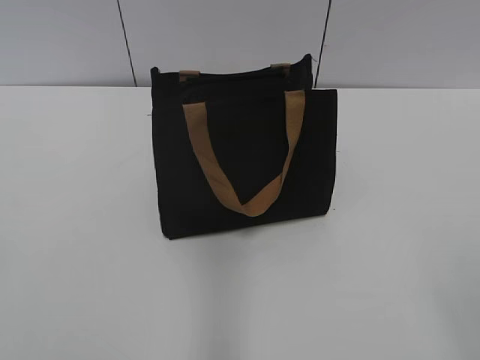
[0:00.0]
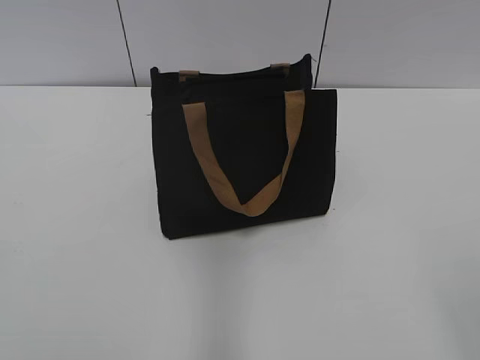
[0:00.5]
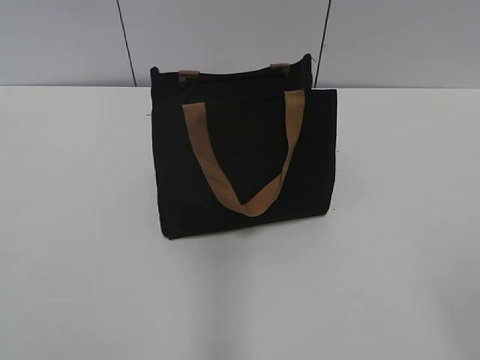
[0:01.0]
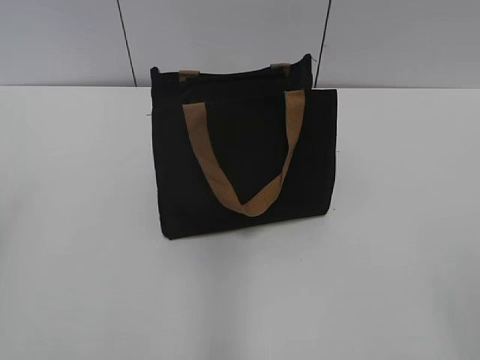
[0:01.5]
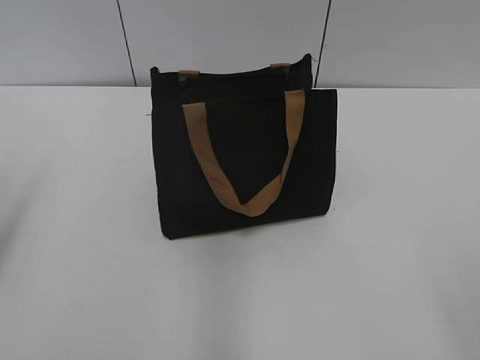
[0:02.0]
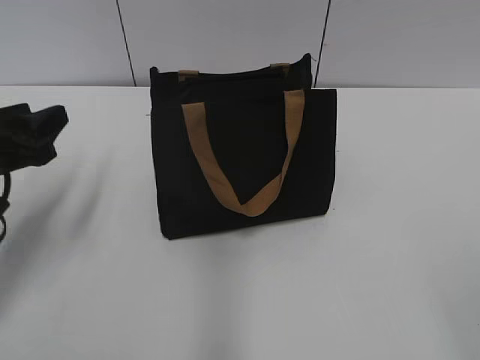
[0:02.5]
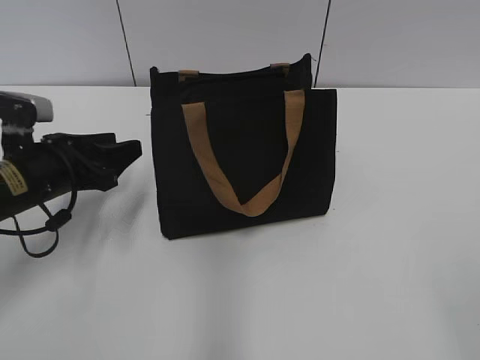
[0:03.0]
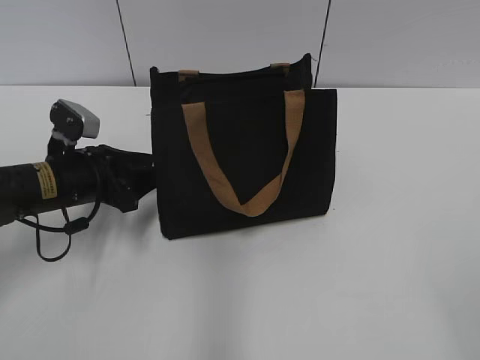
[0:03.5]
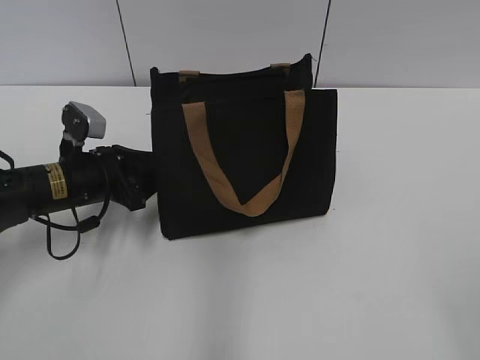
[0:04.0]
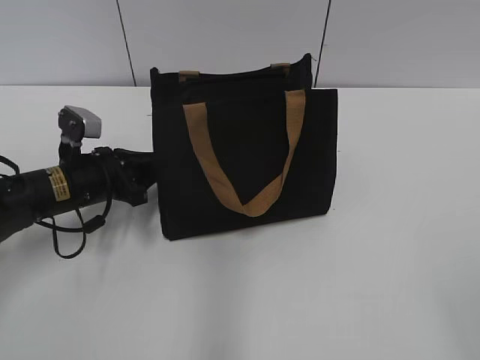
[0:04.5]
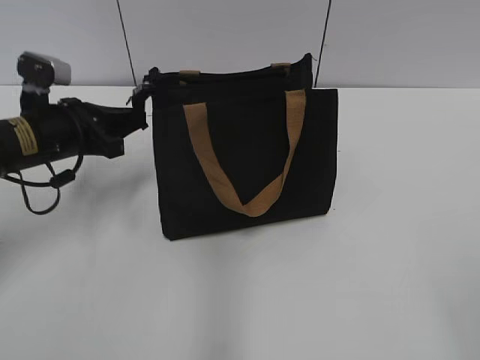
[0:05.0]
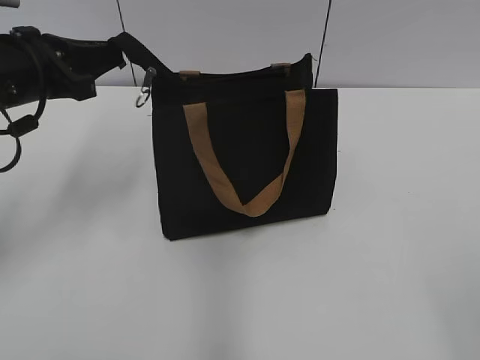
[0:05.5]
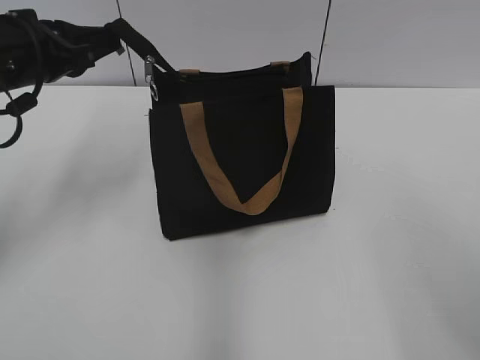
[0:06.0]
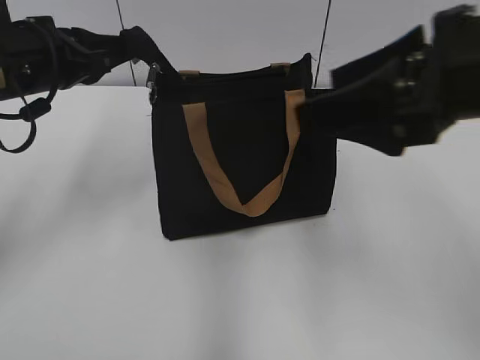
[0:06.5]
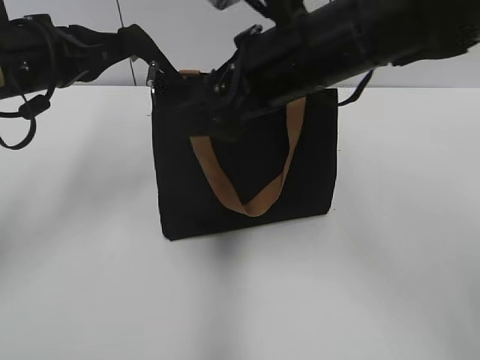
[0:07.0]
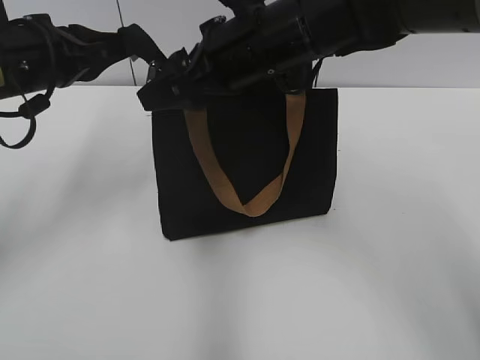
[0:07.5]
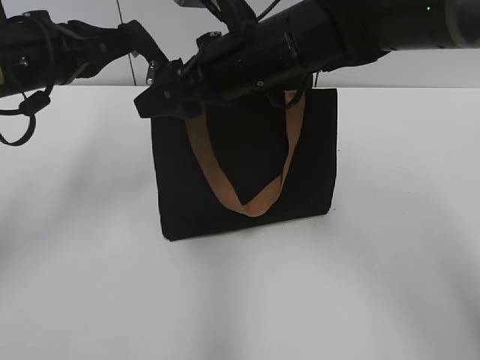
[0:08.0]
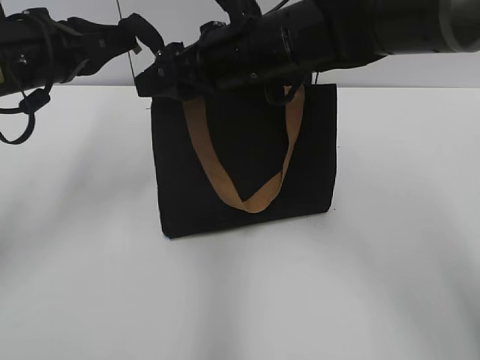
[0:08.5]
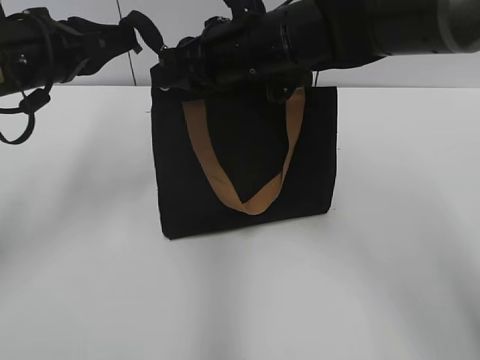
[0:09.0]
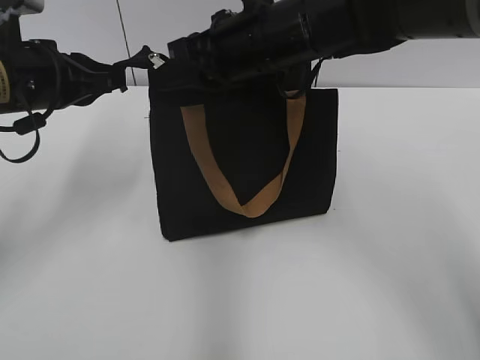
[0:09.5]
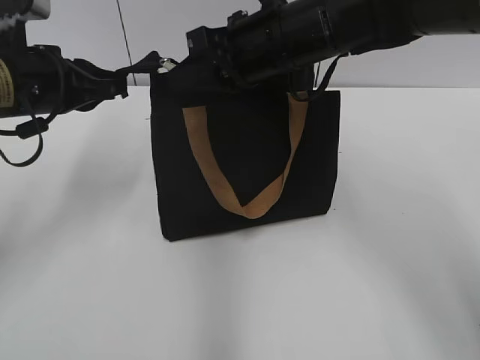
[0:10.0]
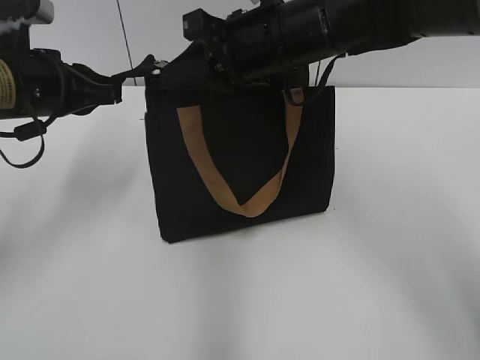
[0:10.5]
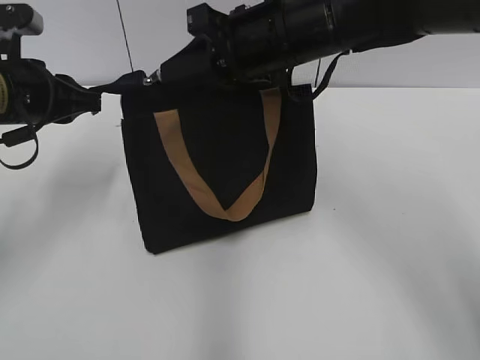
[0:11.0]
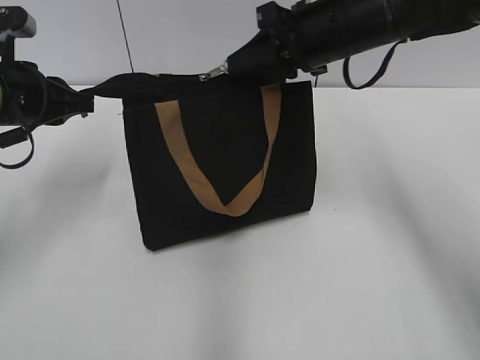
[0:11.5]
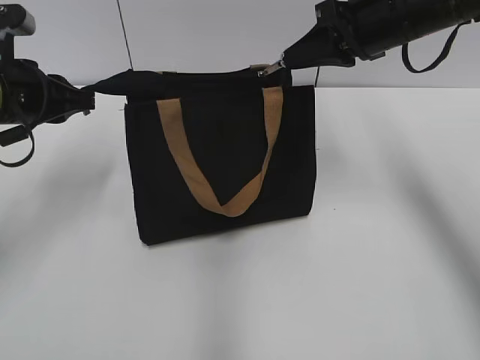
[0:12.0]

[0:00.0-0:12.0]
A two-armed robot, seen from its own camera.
0:02.0 to 0:04.0: The left gripper moves downward, forward and to the right, roughly 30 cm.
0:04.0 to 0:06.0: The right gripper moves forward, about 5 cm. The left gripper heads upward, covering roughly 15 cm, and closes its fingers.
0:06.0 to 0:08.0: The right gripper shifts roughly 35 cm forward and to the left.
0:08.0 to 0:10.0: The right gripper closes its fingers.
0:10.0 to 0:12.0: The right gripper is displaced to the right by some 10 cm.

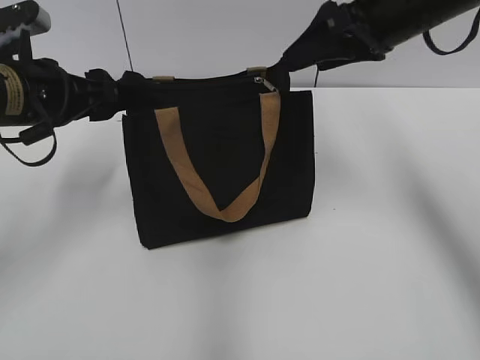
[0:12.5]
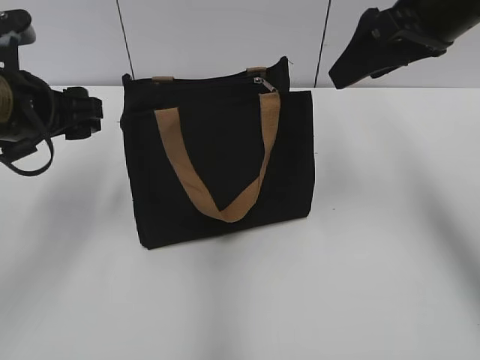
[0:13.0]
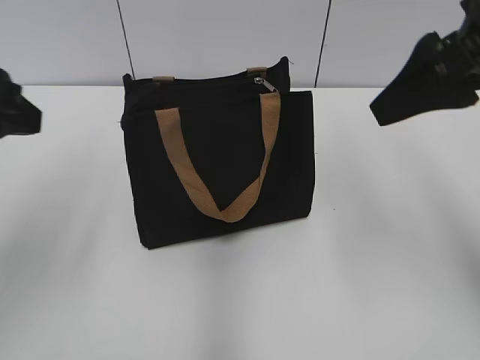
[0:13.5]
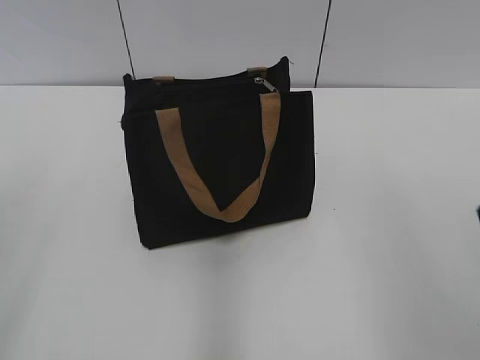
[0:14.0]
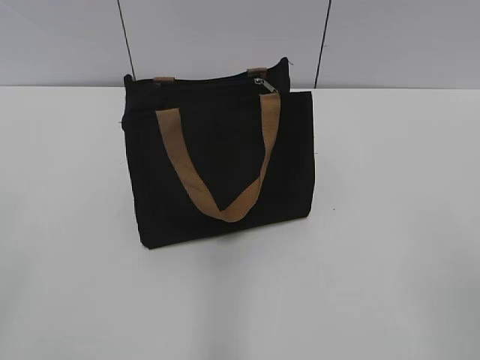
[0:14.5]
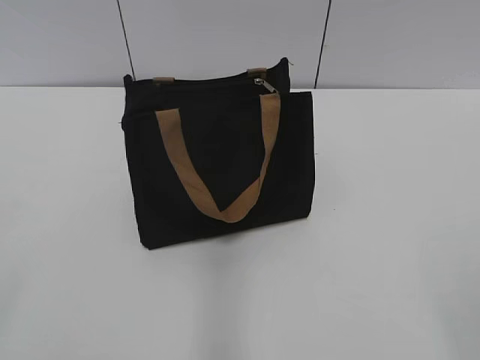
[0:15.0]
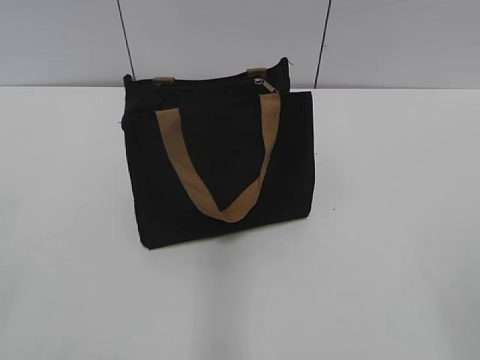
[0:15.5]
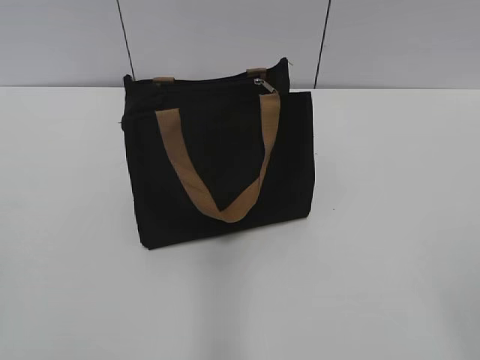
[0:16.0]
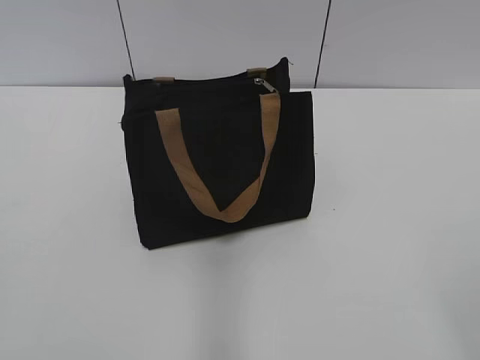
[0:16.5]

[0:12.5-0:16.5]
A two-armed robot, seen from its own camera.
0:12.5 to 0:14.5: The grippers both shift backward by approximately 35 cm.

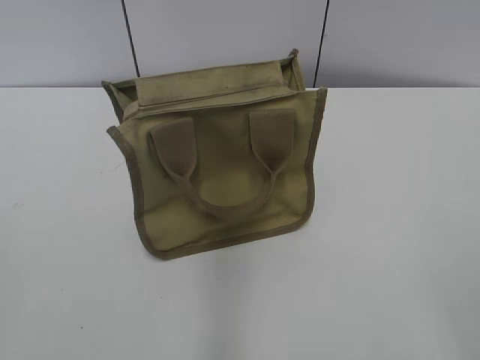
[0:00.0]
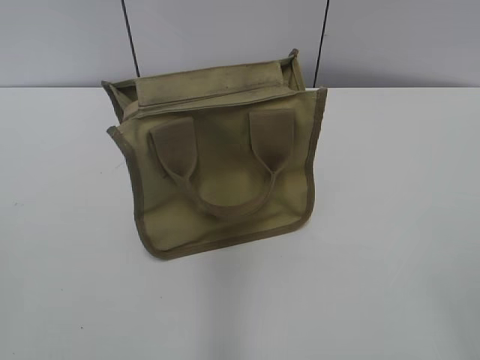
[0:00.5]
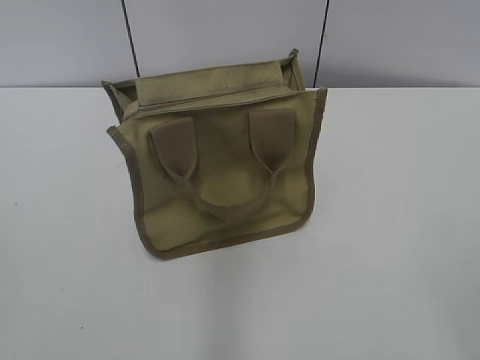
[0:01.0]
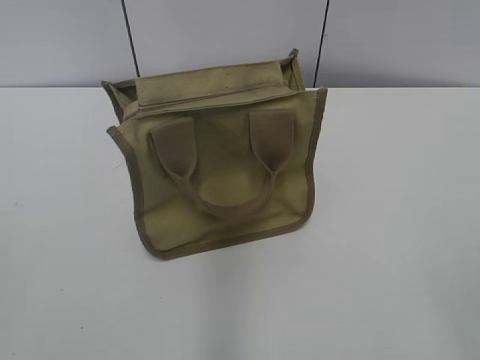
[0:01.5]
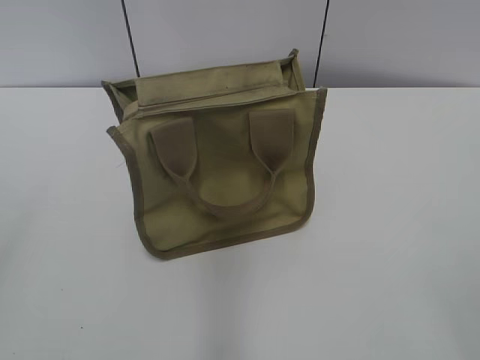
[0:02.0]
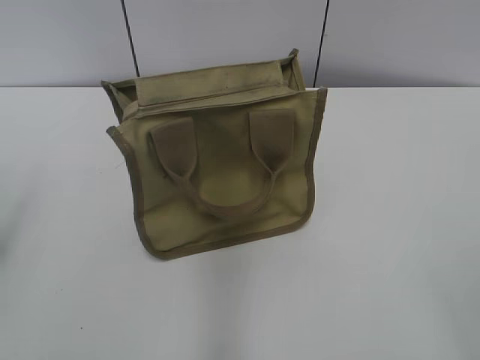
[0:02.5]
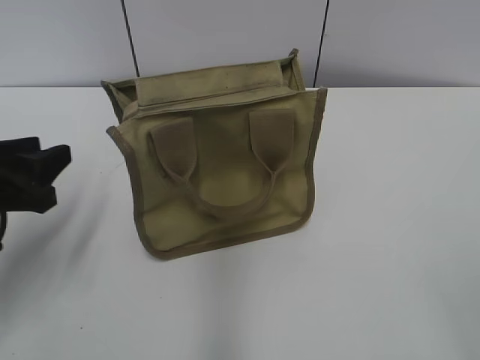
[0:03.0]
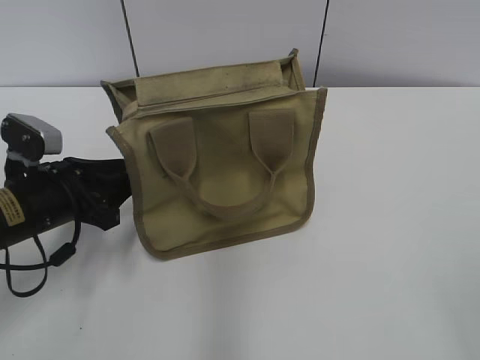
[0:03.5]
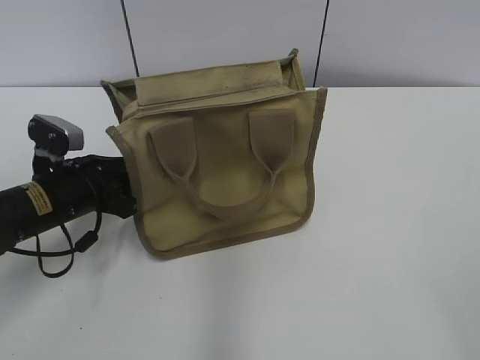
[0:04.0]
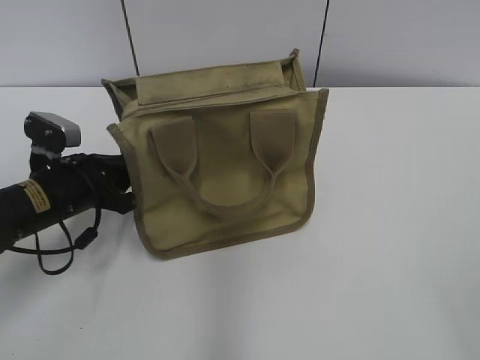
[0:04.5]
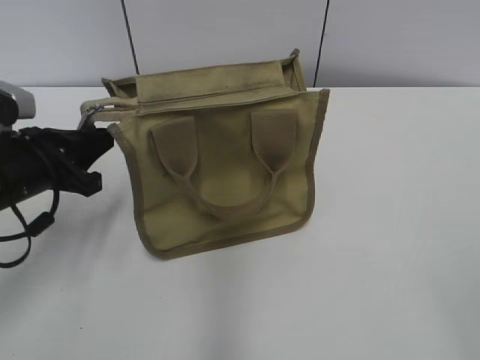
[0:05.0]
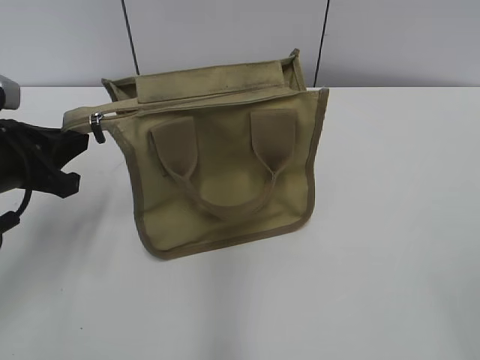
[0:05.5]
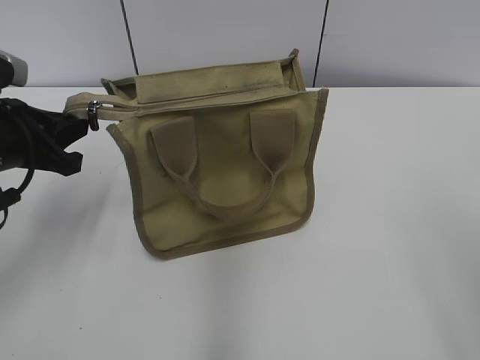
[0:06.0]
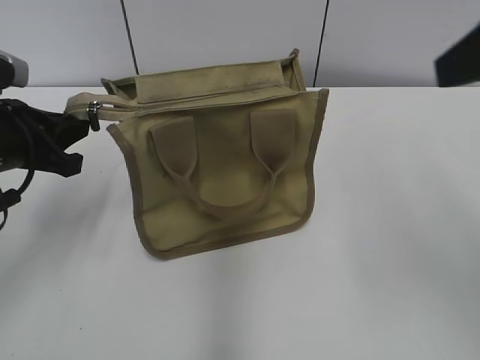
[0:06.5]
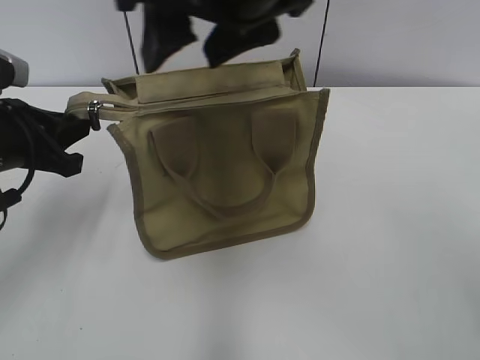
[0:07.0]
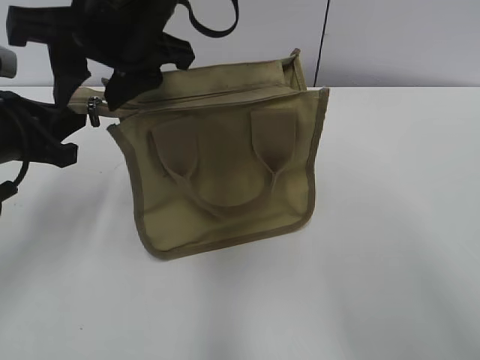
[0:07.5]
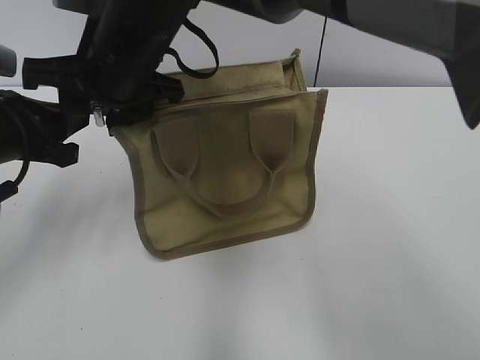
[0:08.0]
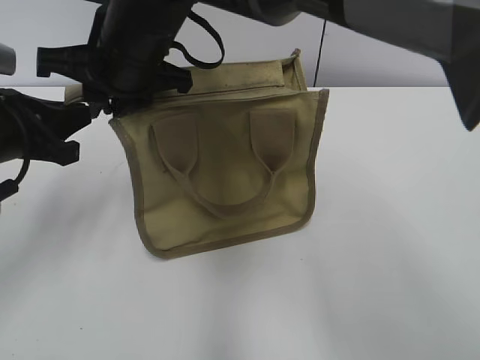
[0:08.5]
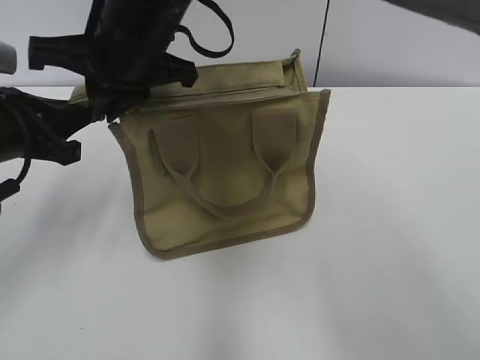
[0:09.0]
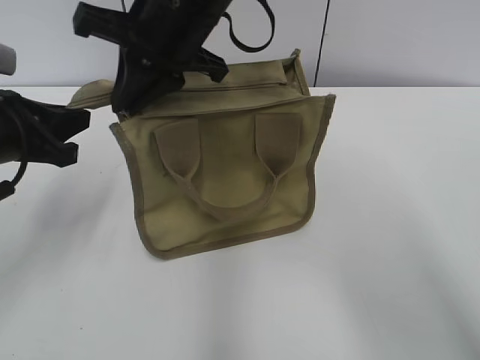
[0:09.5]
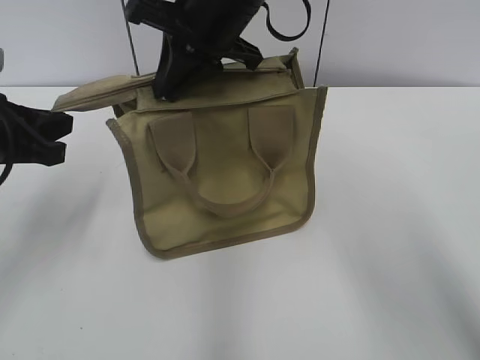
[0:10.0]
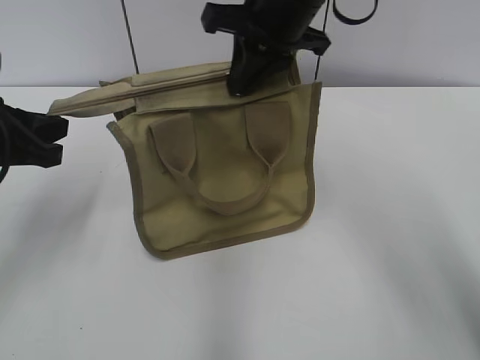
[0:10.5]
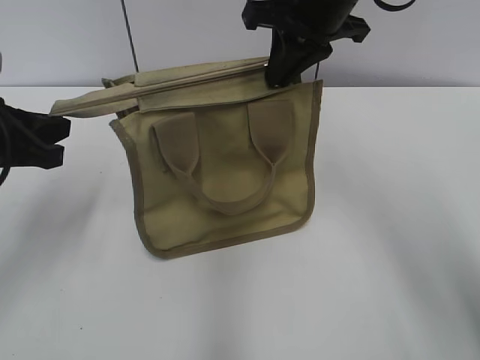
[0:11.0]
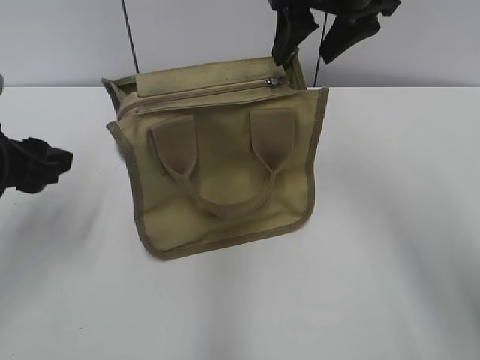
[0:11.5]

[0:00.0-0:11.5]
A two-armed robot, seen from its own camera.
Step, 0:00.0 to 0:11.0: Zip up the bag with your right hand.
0:02.0 to 0:04.0: The left gripper is displaced forward and downward by approximately 35 cm, and closes its fingers.
0:04.0 to 0:06.0: The left gripper heads upward, covering approximately 10 cm, and closes up.
0:06.0 to 0:07.5: The right gripper heads to the left and forward, covering roughly 40 cm.
0:07.5 to 0:09.5: The right gripper changes place by roughly 5 cm, and closes up.
0:09.5 to 0:11.5: The left gripper opens its fingers, while the right gripper goes roughly 15 cm to the right, and opens its fingers.
